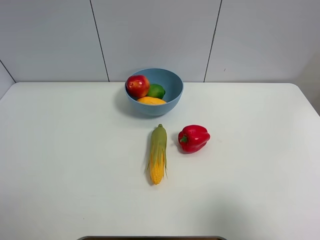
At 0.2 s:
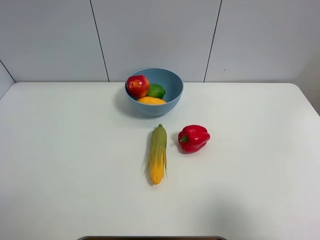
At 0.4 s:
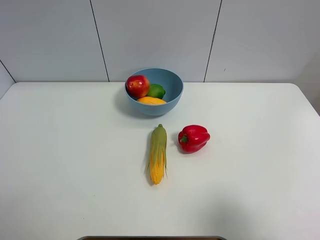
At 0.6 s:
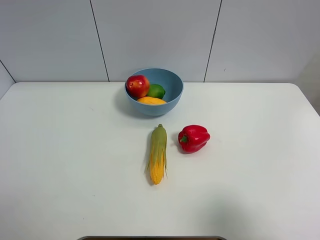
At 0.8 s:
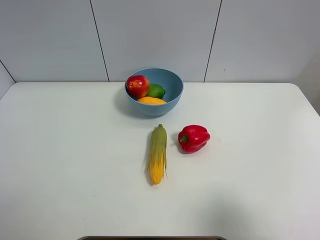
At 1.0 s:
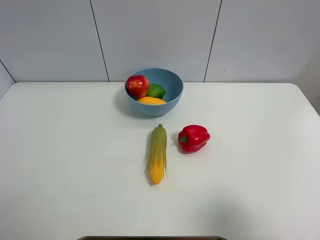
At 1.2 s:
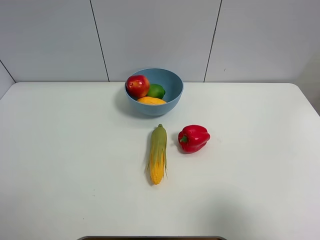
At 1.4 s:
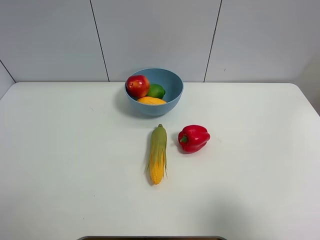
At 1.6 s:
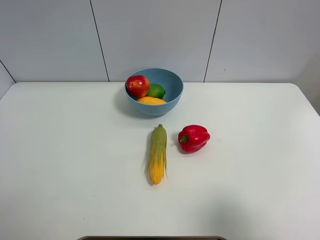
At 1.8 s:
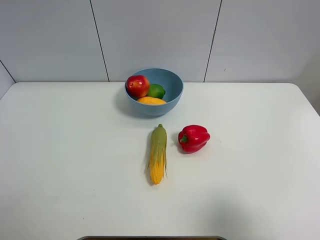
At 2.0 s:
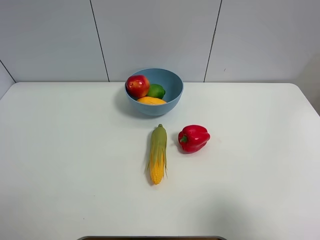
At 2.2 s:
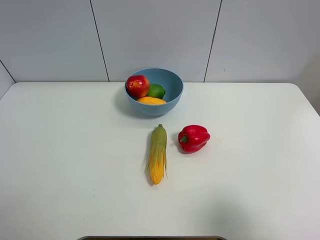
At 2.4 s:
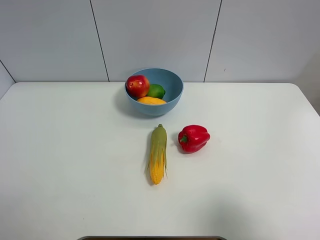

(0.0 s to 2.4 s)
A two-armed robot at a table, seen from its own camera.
Task of the whole recording: Put the three fruits on the table into a bowl.
1.2 s - 2.4 s: Both grippers stay about where they are.
